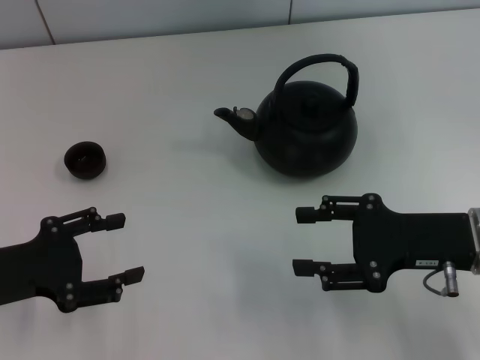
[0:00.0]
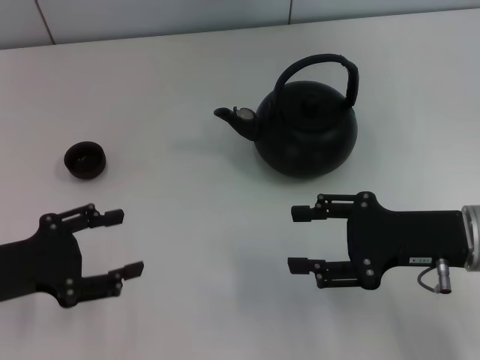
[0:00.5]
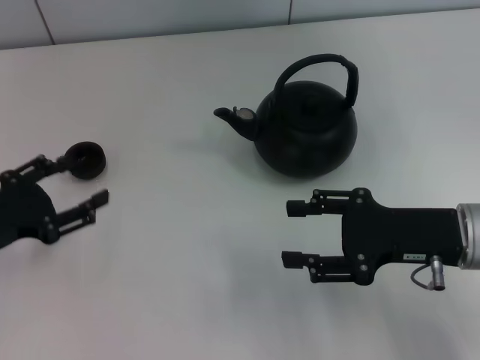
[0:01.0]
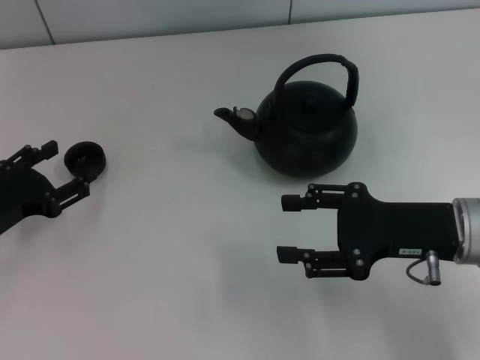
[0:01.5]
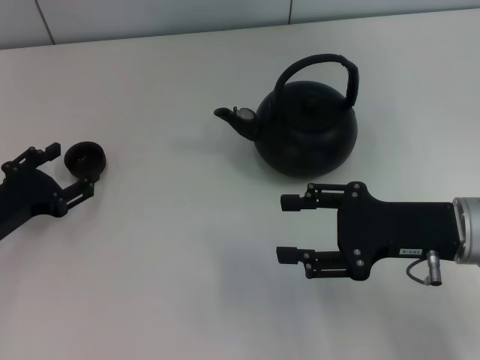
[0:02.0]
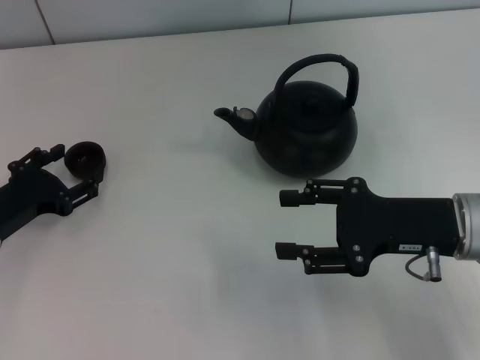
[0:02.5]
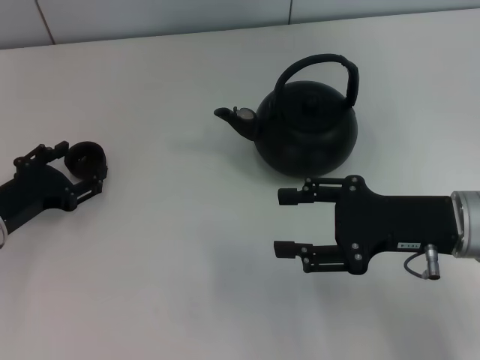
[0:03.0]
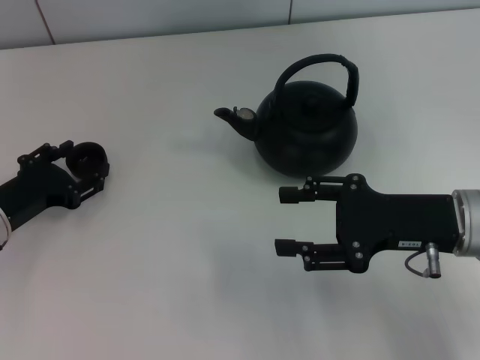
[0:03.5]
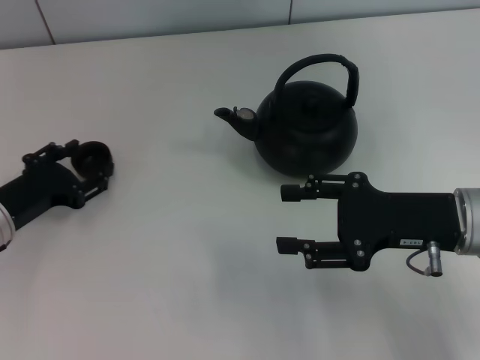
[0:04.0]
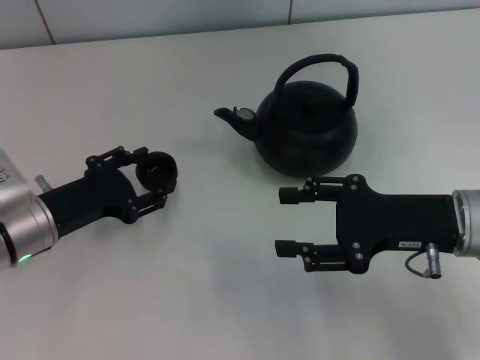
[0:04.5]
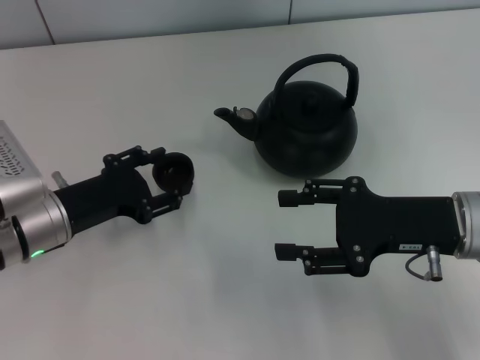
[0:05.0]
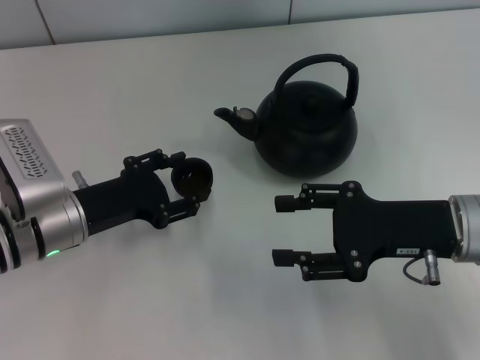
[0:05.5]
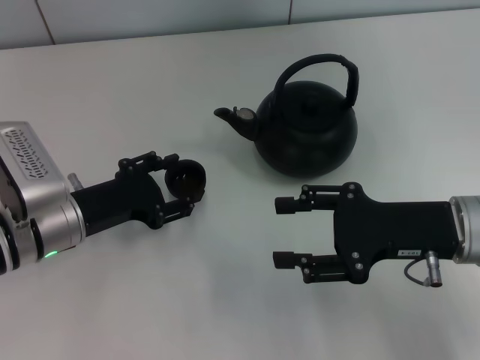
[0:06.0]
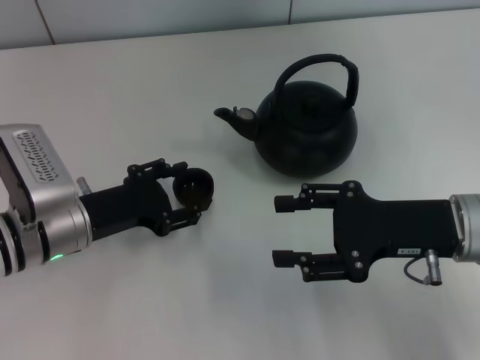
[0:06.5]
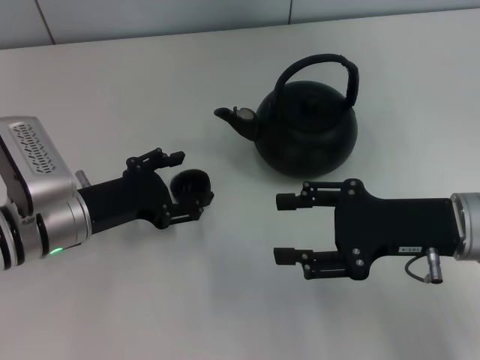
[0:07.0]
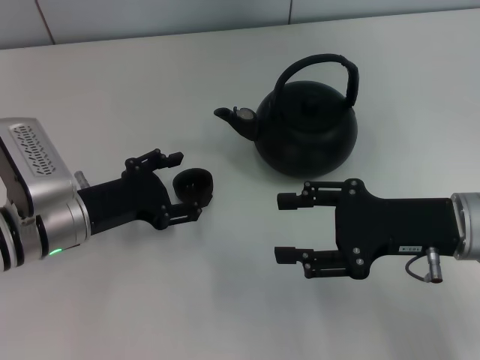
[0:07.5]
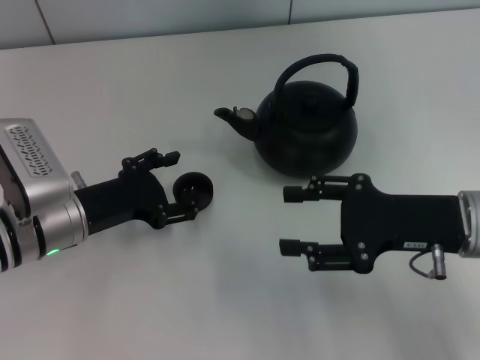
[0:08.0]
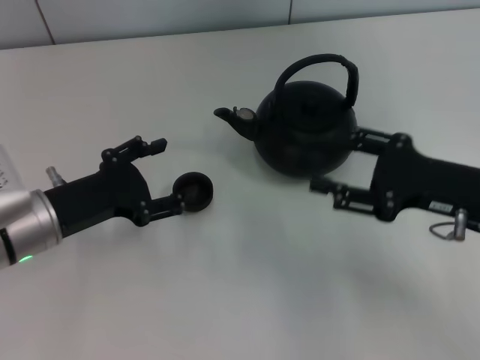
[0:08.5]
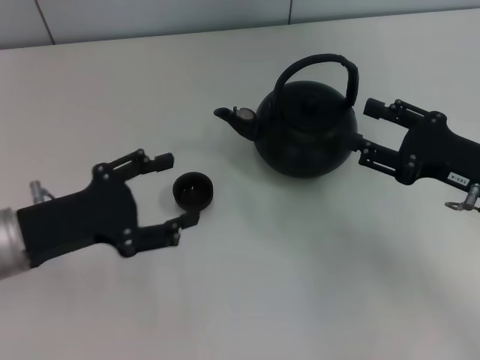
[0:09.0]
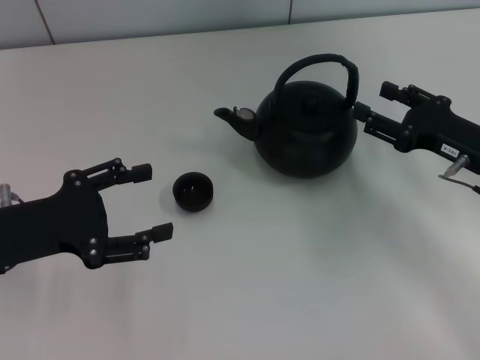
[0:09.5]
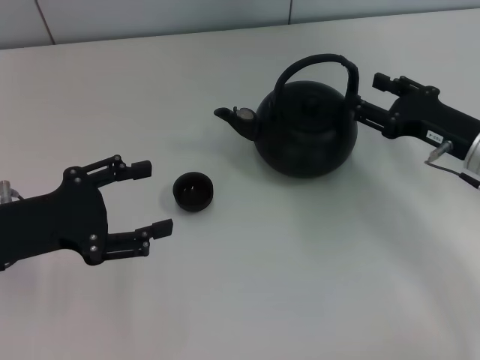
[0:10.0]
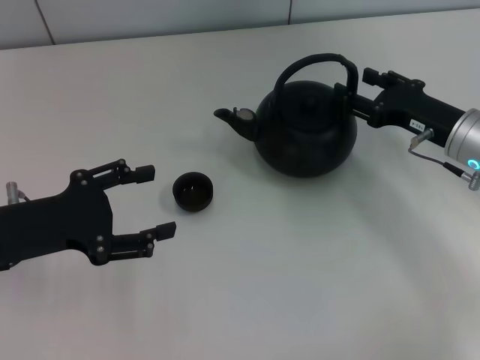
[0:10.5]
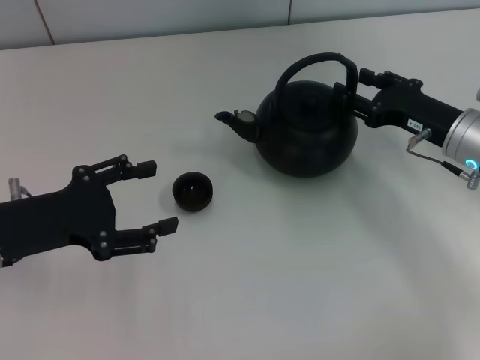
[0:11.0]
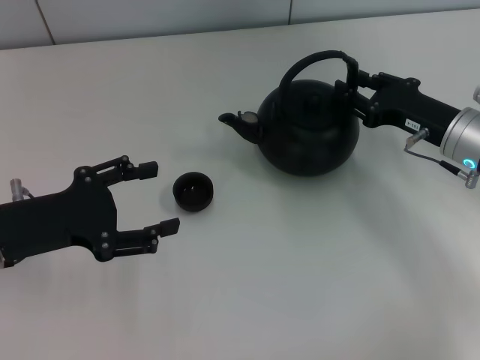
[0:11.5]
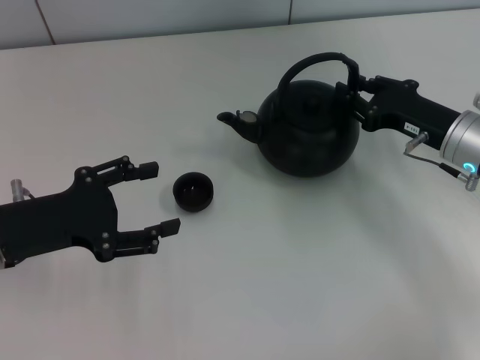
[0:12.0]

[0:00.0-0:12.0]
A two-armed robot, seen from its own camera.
Task of the whole recording: Grasp the handle of the teapot with one hand and pour tea into the teacup.
Step, 0:00.0 to 0:04.5: Pick up the teacup with the left gripper.
Step, 0:05.0 to 0:08.5: Place the teacup in the center of view with the left gripper.
0:00.0 to 0:02.0: The left gripper ends up about 5 cm from where it was.
0:02.0 to 0:04.0: The left gripper closes.
0:04.0 to 0:06.0: The left gripper is displaced to the right by some 5 cm.
0:06.0 to 0:08.0: The left gripper opens its fingers.
0:08.0 to 0:10.0: The right gripper moves forward and to the right, approximately 10 cm. The left gripper goes about 10 cm to the left and upward.
0:10.0 to 0:12.0: The right gripper closes its fingers.

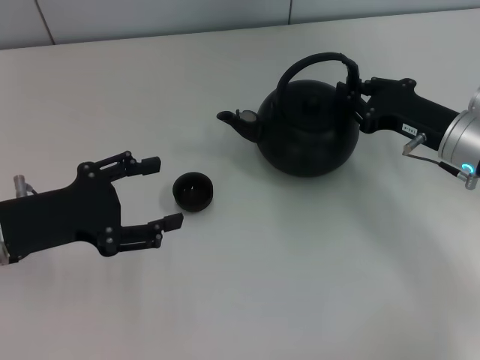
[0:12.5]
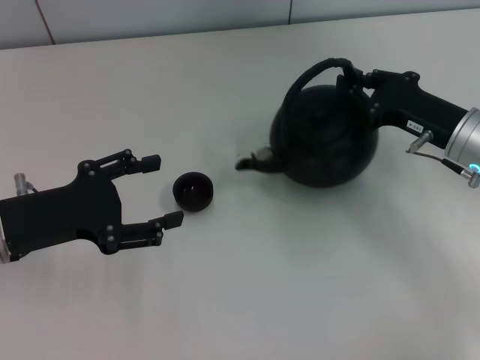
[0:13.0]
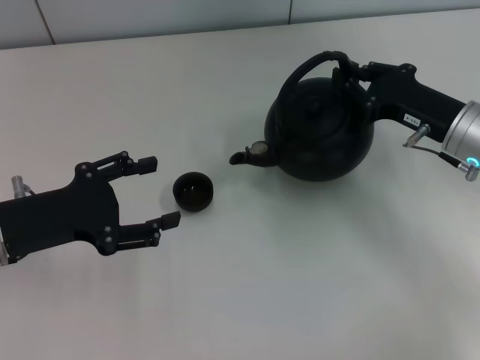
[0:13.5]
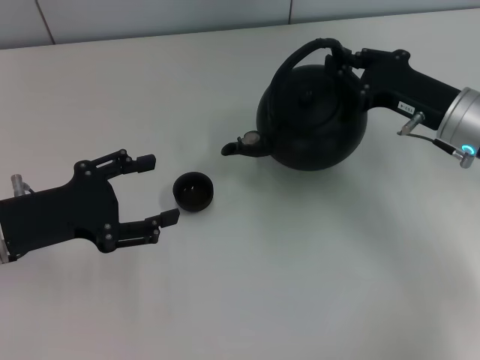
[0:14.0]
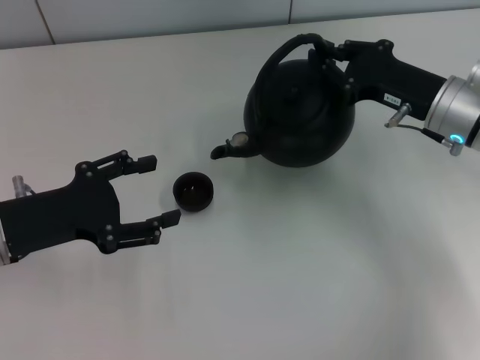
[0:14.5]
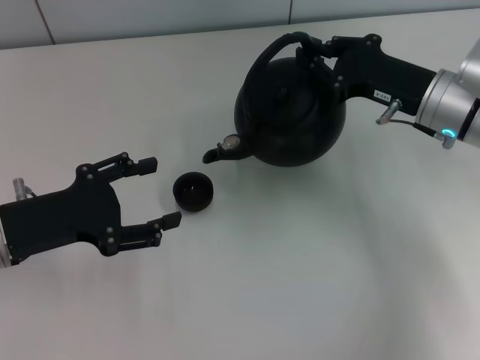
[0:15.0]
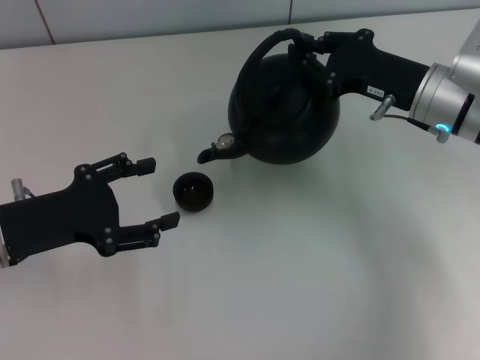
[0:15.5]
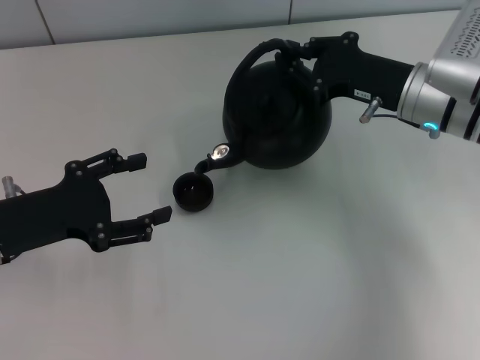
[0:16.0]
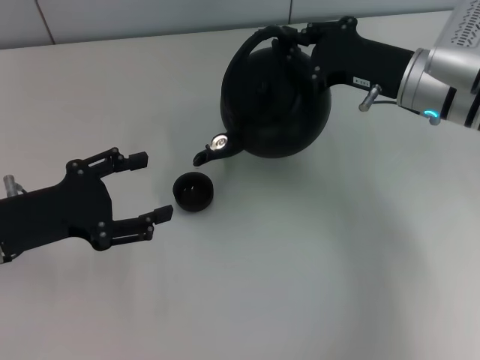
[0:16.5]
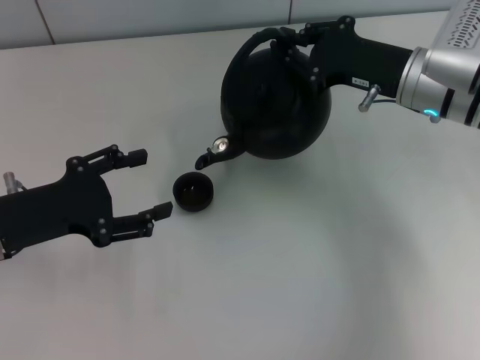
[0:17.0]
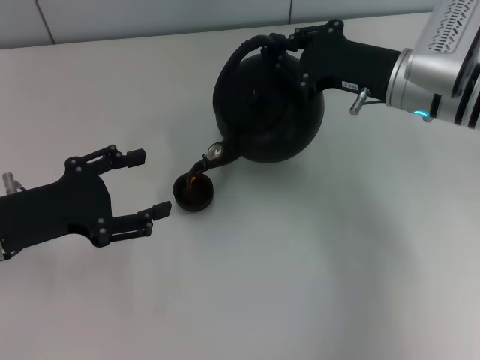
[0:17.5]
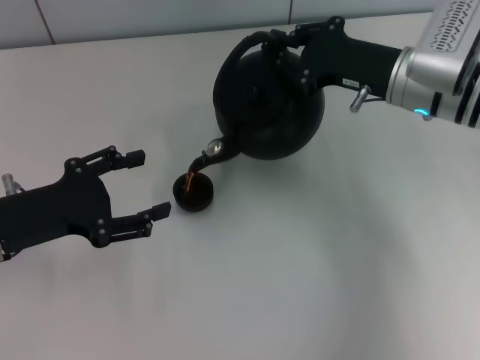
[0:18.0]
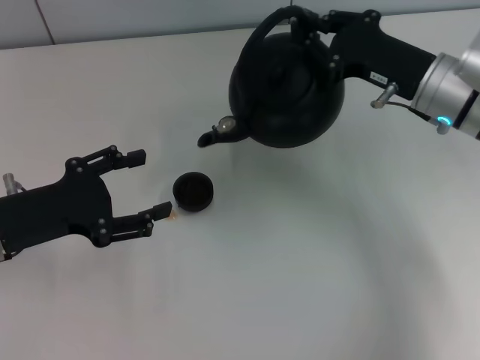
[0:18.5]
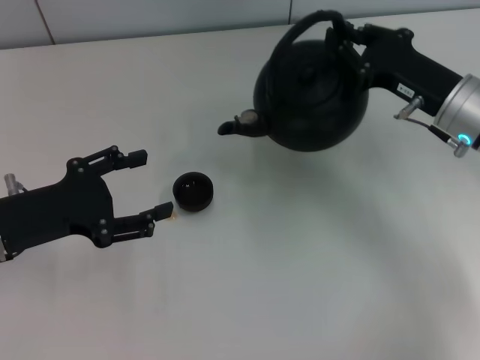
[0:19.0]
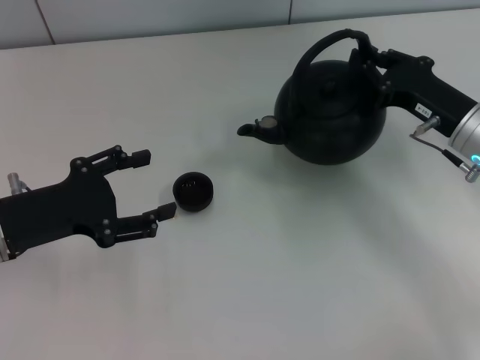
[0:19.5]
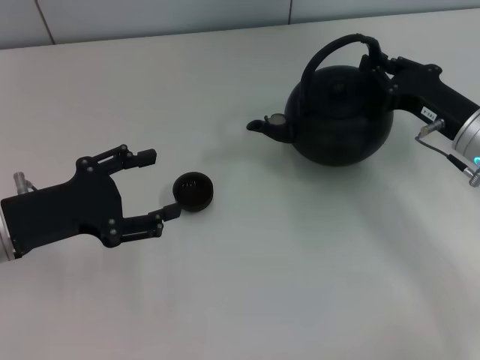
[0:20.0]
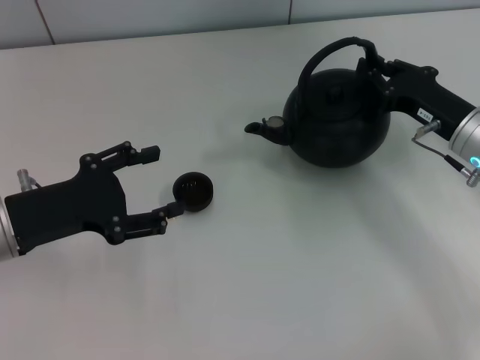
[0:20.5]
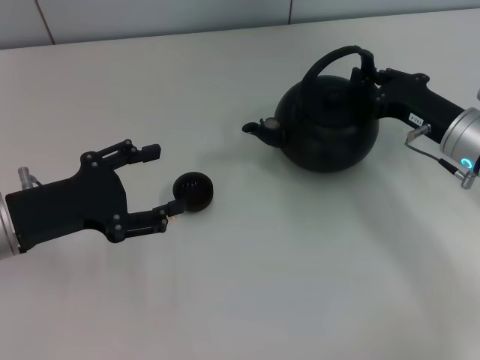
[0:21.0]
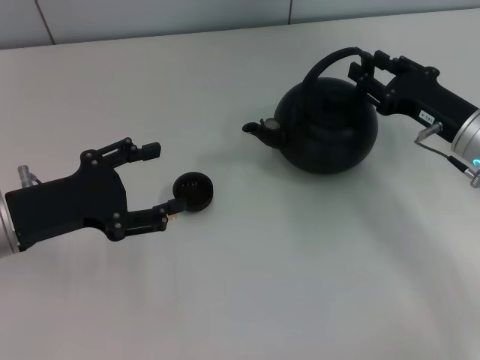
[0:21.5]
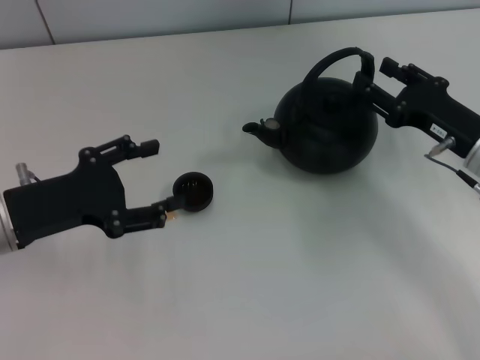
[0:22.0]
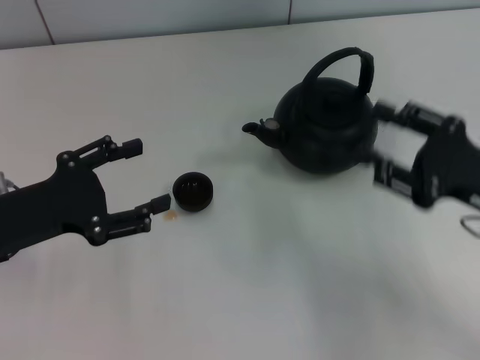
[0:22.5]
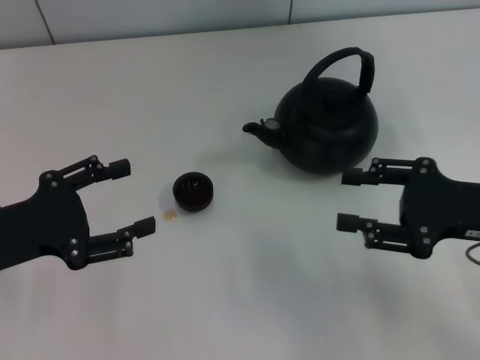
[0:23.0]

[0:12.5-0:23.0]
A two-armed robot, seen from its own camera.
Task of the whole recording: Grasp the handle of the teapot with one hand and pour tea into the teacup.
Step, 0:19.0 to 0:22.0: Put down the teapot with the right gripper.
0:12.5 to 0:14.5: The grippers make only small movements.
0:14.5 to 0:16.5: The grippers make only small movements.
0:16.5 to 0:19.0: The right gripper moves roughly 5 cm.
0:19.0 to 0:21.0: The grippers make only small movements.
0:21.0 to 0:23.0: The right gripper travels backward and upward by approximately 10 cm, and opens its fingers.
